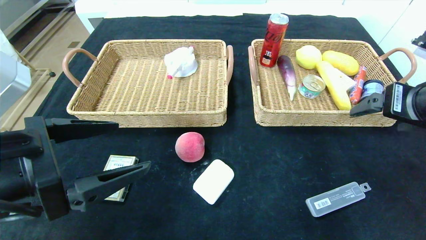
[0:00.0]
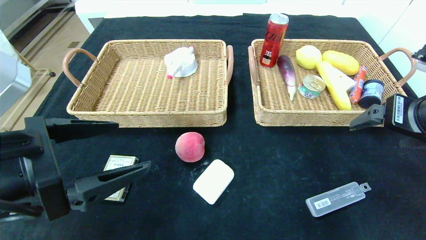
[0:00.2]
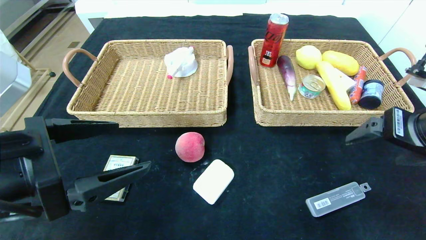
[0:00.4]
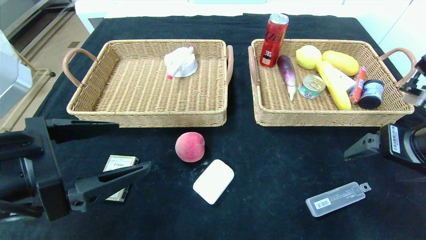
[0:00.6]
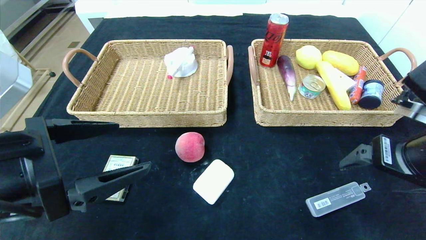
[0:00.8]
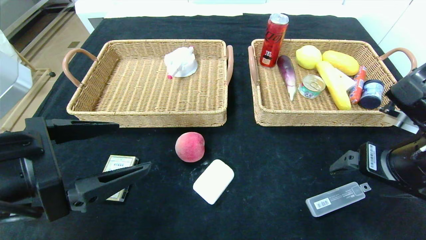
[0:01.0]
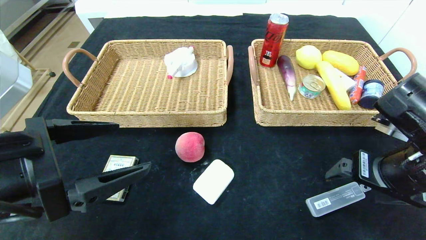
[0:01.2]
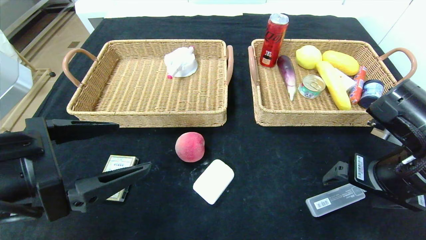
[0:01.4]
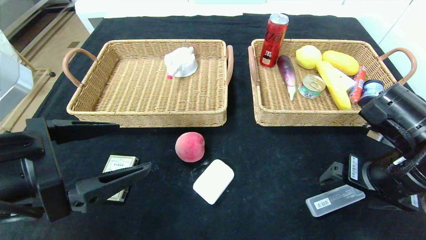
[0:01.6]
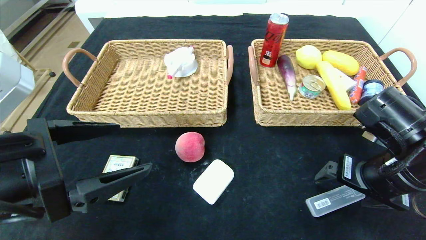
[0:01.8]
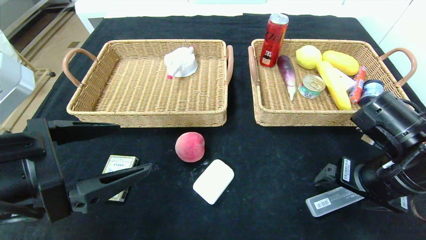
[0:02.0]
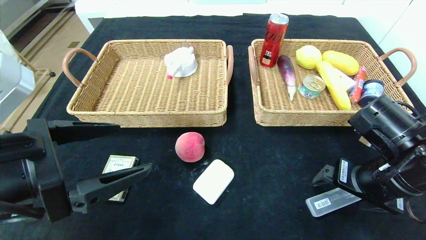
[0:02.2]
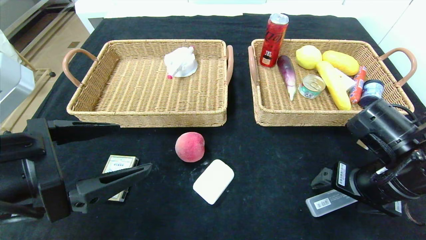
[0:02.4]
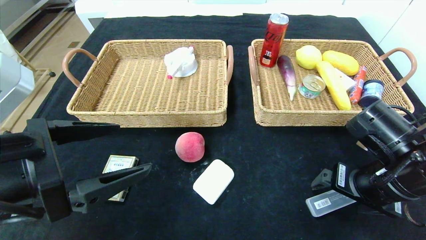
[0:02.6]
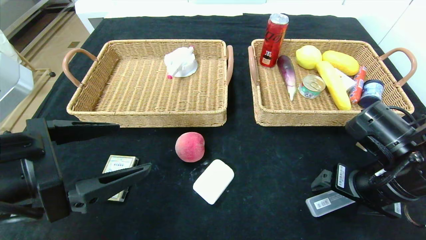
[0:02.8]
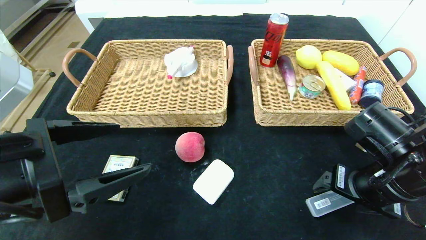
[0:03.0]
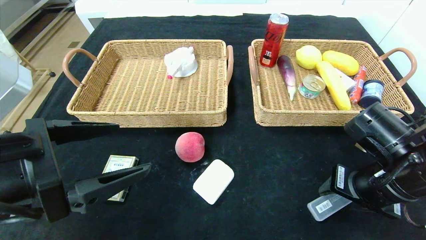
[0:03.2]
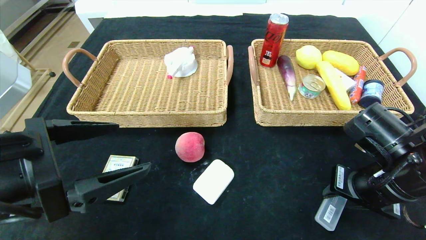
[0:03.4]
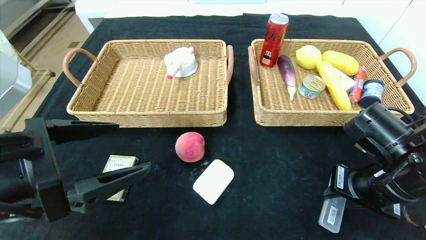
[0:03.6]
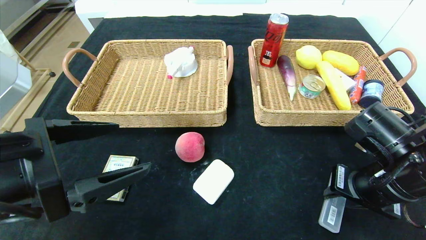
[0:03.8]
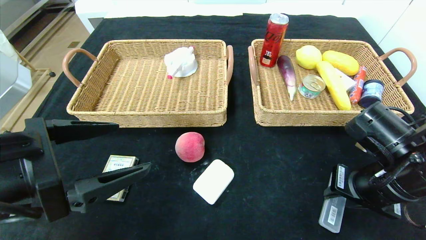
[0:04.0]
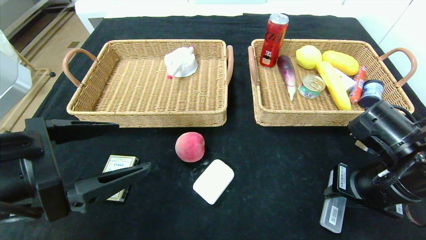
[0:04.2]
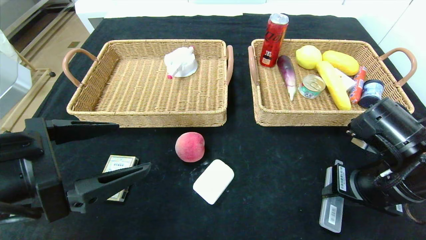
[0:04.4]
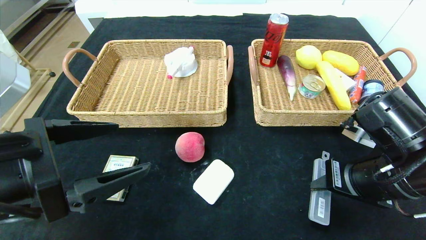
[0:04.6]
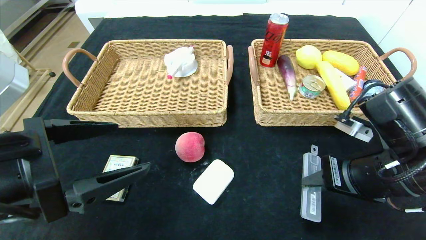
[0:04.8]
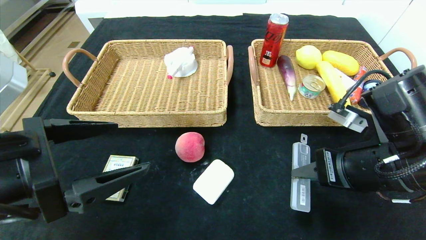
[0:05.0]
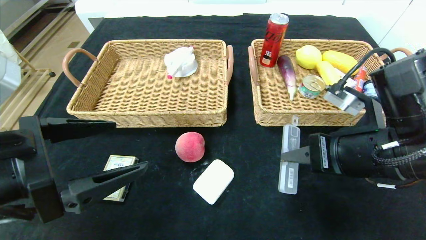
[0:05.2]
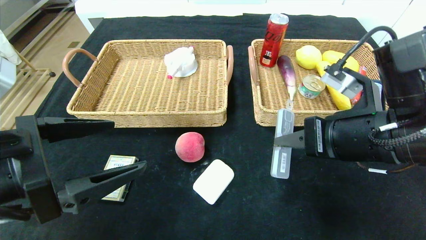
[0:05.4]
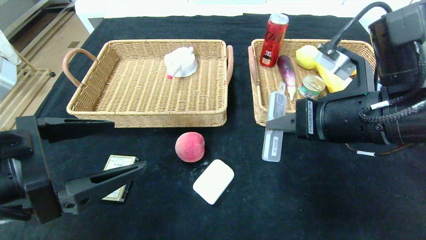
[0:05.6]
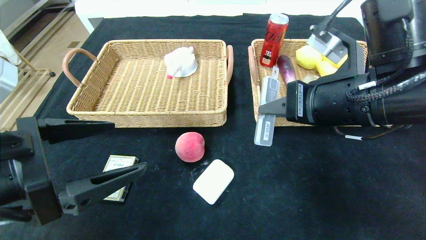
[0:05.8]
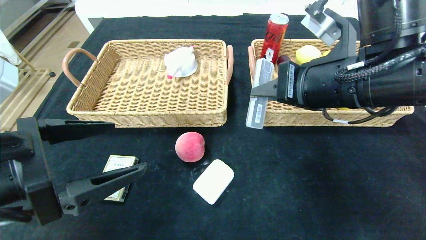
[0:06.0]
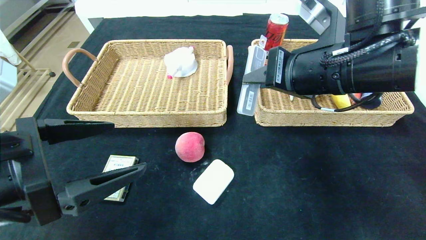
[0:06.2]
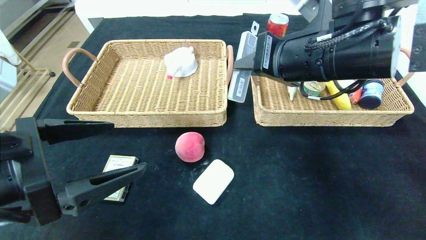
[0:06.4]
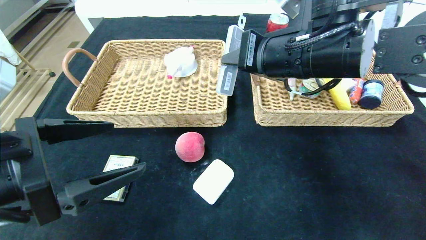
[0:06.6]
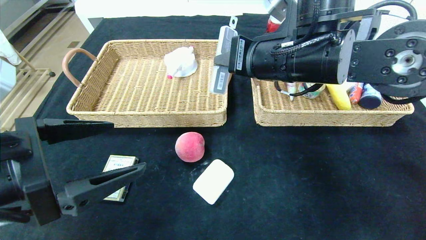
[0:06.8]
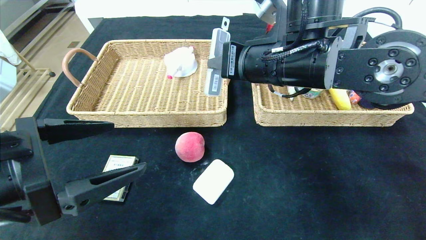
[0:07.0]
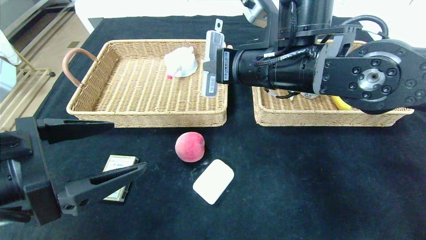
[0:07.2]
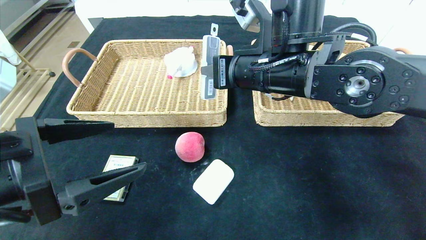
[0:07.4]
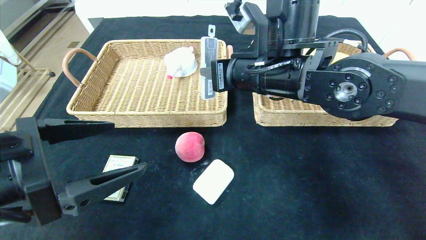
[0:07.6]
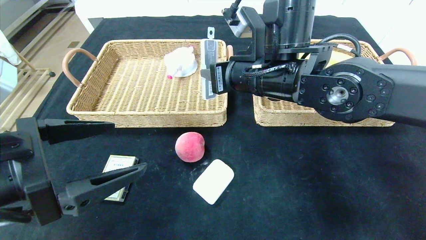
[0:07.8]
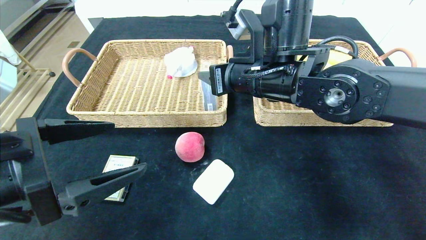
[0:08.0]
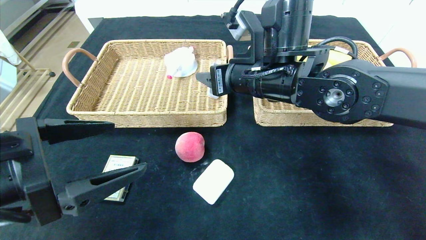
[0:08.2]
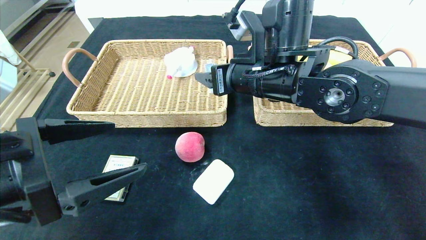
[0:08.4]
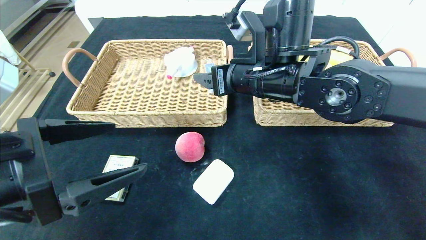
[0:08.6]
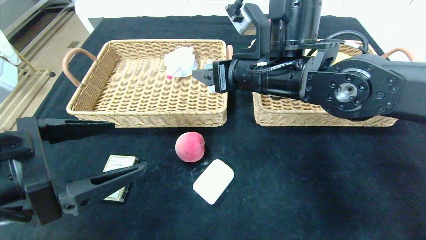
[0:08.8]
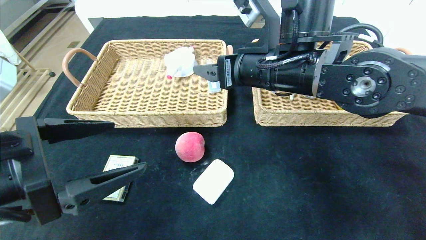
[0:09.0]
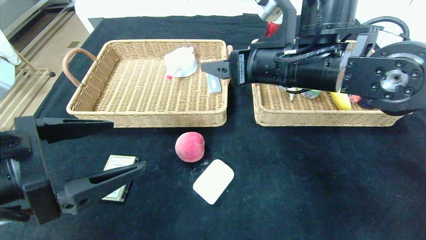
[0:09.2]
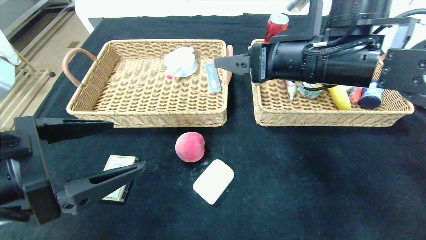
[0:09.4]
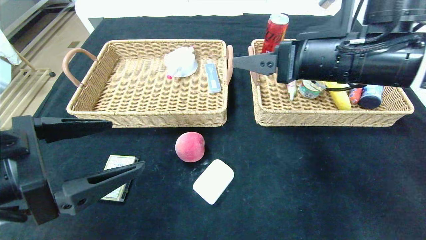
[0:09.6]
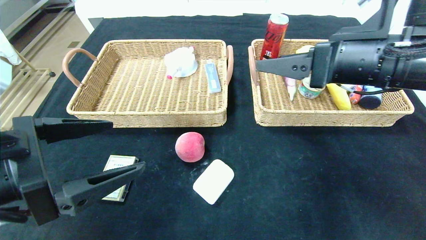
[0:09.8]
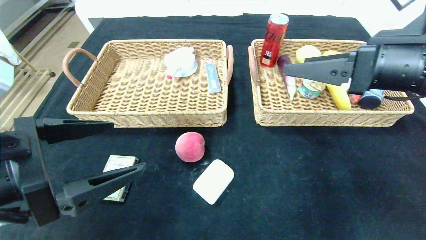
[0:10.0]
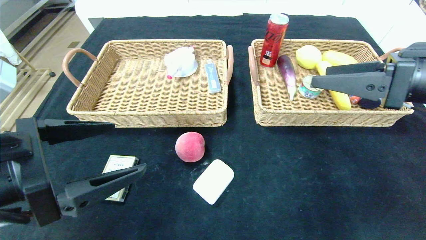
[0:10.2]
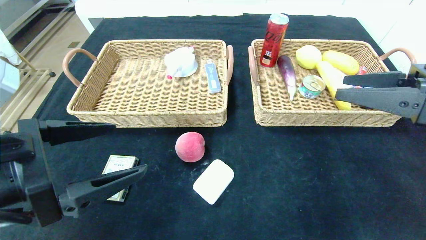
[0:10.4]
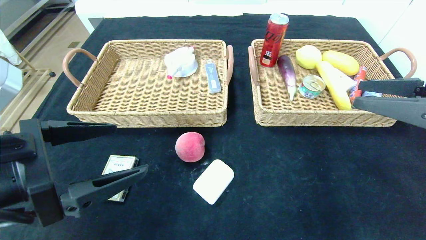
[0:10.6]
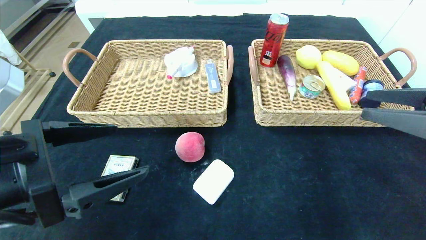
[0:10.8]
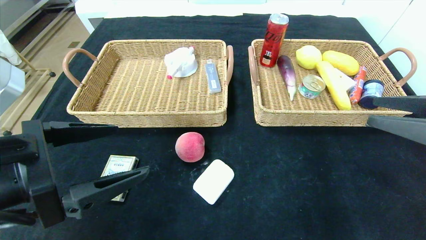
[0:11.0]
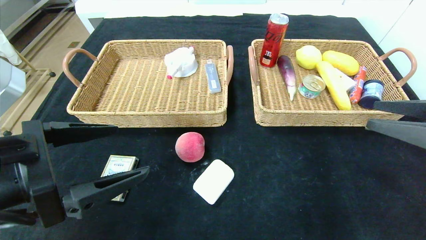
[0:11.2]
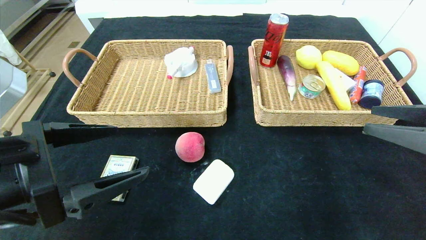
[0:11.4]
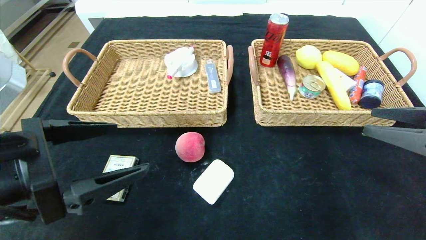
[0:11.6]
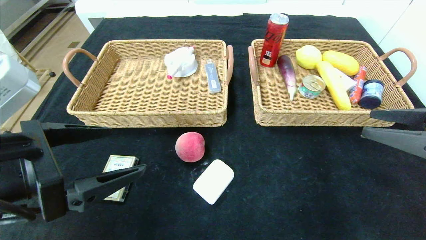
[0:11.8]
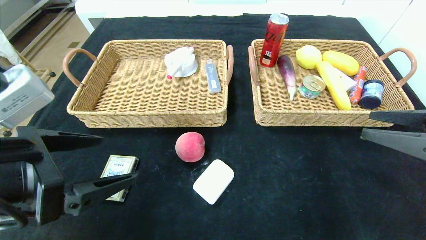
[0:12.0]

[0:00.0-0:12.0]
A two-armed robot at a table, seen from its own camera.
Step, 0:00.0 to 0:08.4: Grasp the compass and put it in the right basket.
0:00.0 to 0:01.6: The right gripper moves downward, approximately 10 cm.
0:01.6 to 0:03.0: The grippers stay close to where they were, moving slightly.
0:03.0 to 0:04.4: The right gripper closes.
0:04.4 to 0:06.0: The right gripper moves upward and to the left, some 15 cm.
0:06.0 to 0:07.6: The right gripper heads to the left and forward, covering roughly 10 cm.
0:07.6 to 0:09.0: The right gripper opens.
0:09.0 to 0:10.4: The right gripper shifts approximately 25 cm to the right and backward.
0:10.4 to 0:12.0: The right gripper moves approximately 5 cm.

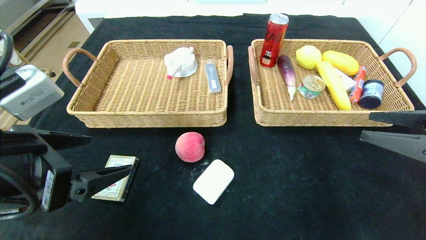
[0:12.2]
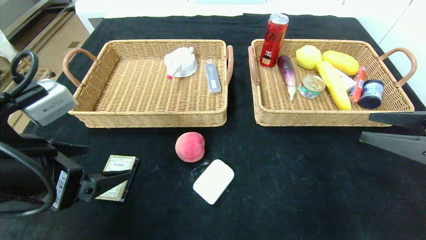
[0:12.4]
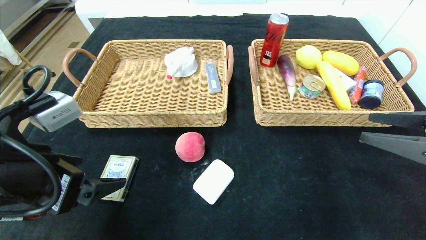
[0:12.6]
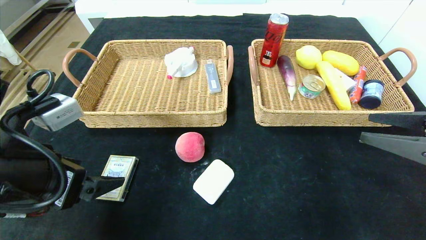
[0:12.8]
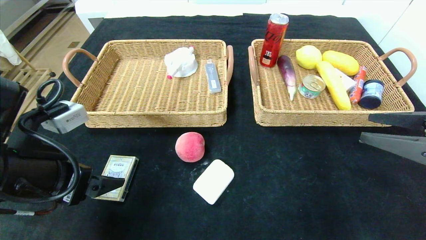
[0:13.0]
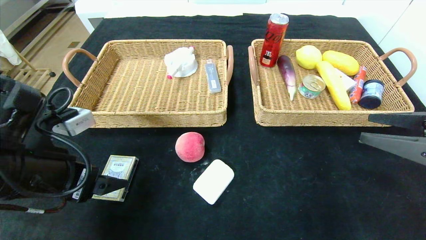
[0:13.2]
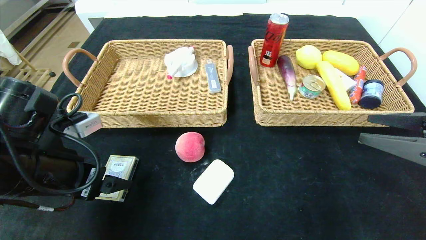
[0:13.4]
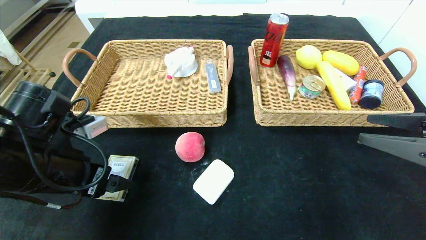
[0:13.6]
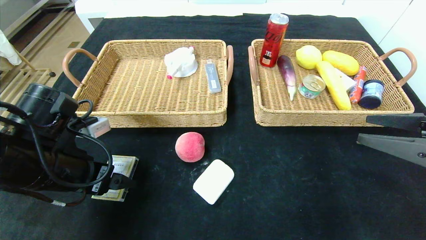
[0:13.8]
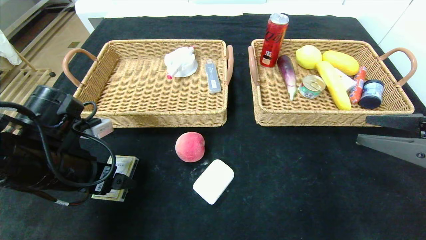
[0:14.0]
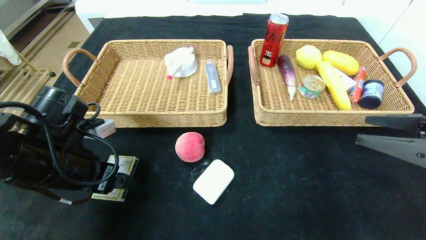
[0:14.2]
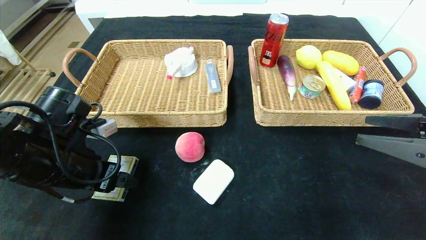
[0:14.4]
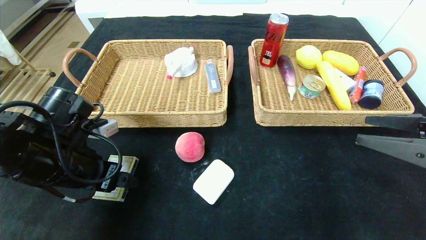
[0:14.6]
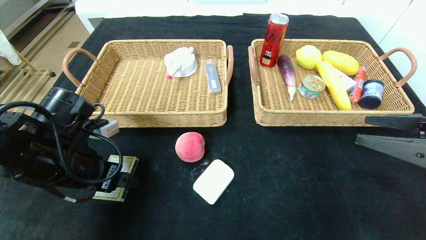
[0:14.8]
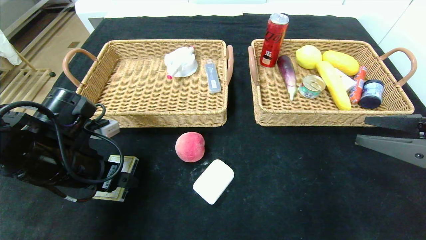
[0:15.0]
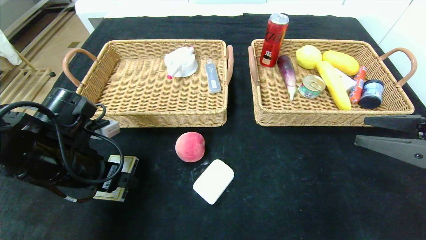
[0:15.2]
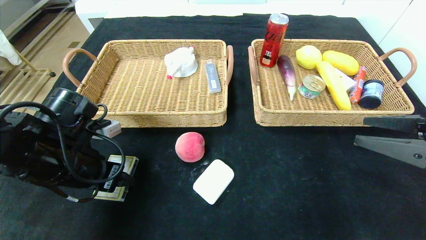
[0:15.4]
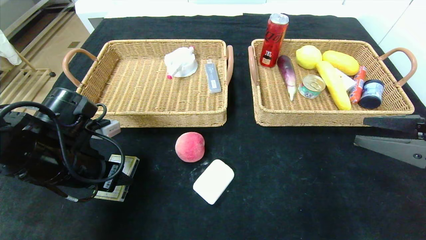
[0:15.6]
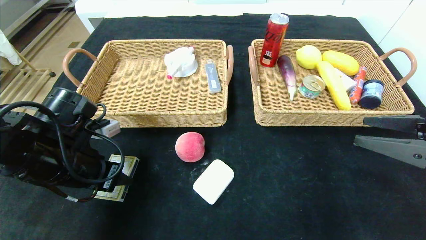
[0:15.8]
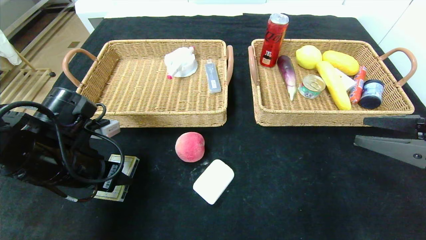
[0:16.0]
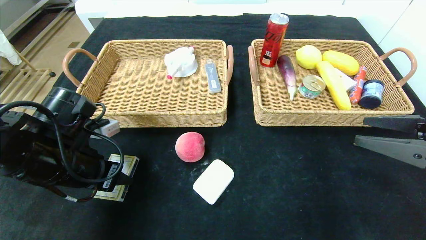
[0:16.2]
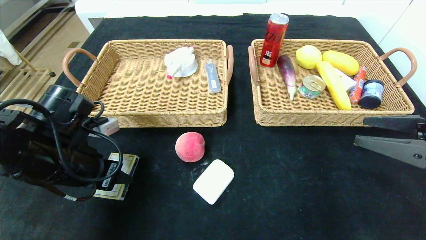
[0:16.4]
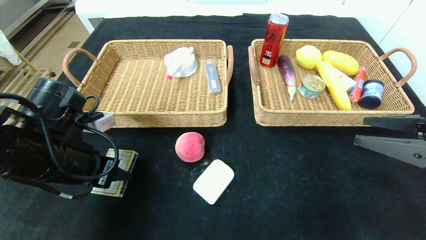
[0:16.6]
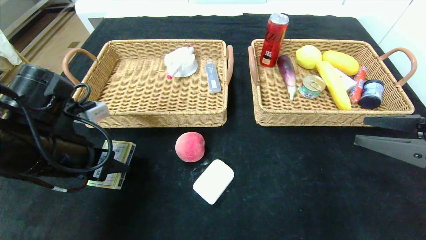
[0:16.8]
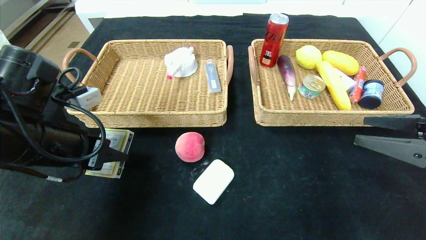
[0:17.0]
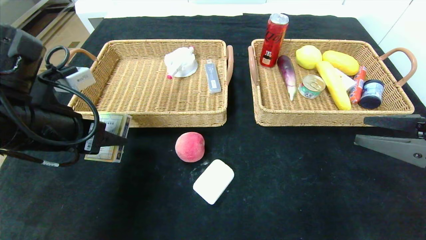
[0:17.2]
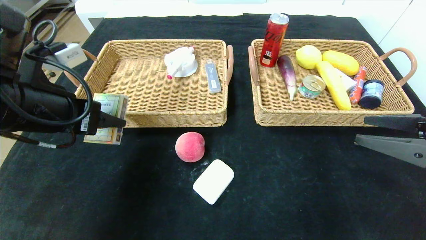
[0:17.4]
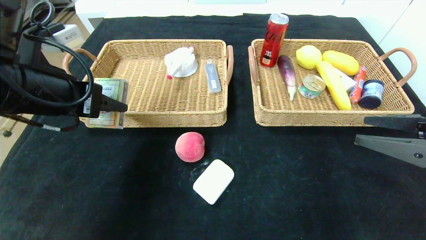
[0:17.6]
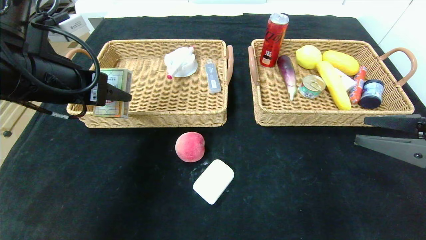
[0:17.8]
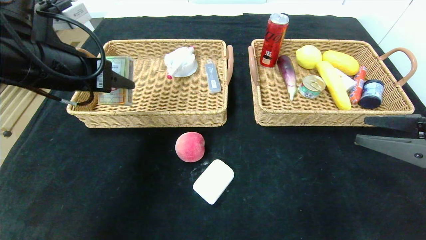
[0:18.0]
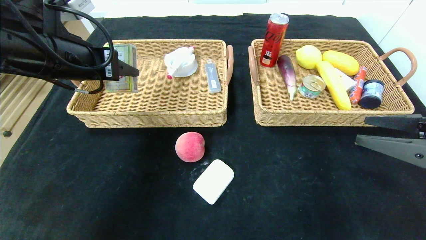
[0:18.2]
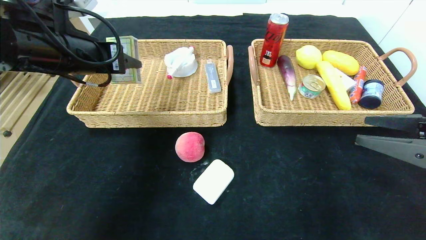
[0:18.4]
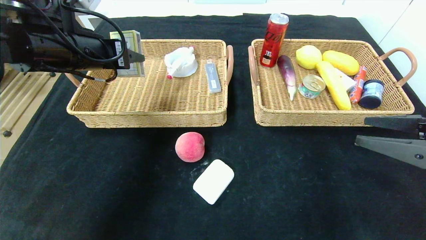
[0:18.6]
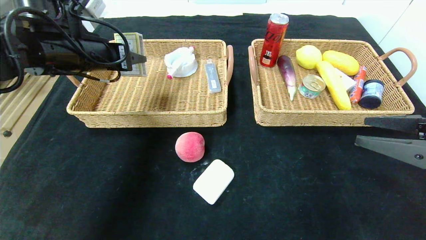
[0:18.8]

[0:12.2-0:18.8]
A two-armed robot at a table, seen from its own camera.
0:12.2 to 0:13.8: The left gripper heads forward and downward, covering some 10 cm.
0:13.8 to 0:15.4: The left gripper closes.
0:15.4 to 0:17.2: The left gripper is displaced upward by about 10 cm.
0:17.2 to 0:18.8: The left gripper shifts roughly 15 cm forward.
